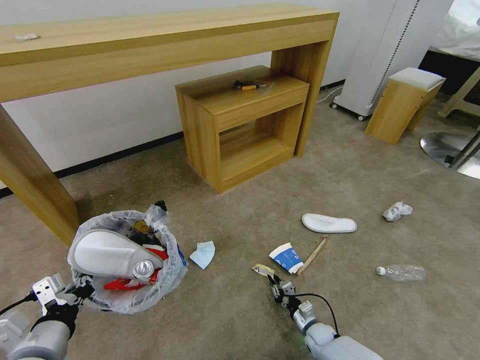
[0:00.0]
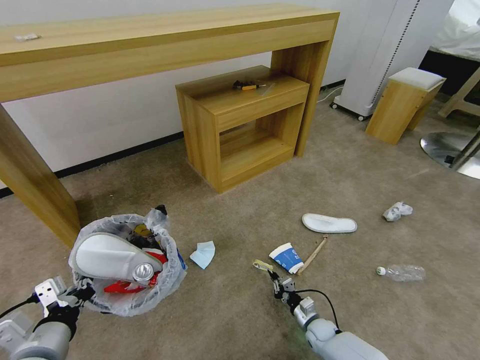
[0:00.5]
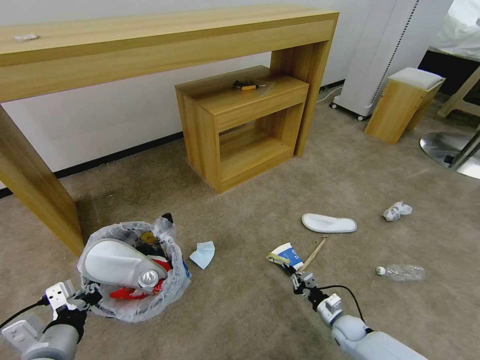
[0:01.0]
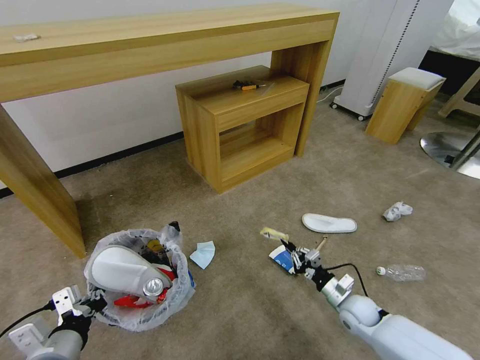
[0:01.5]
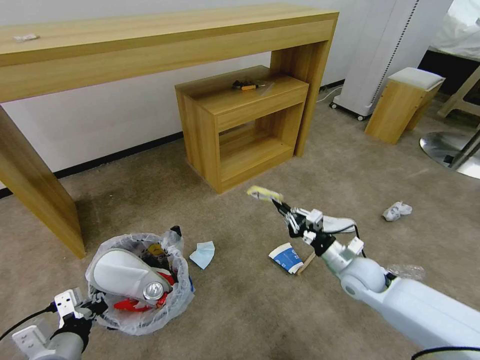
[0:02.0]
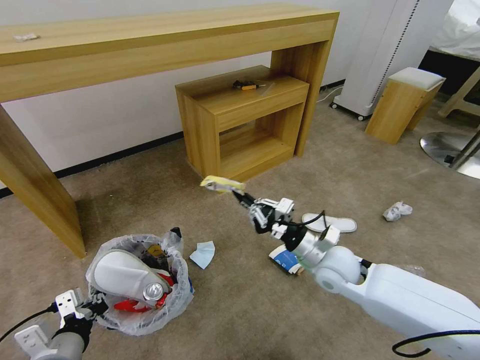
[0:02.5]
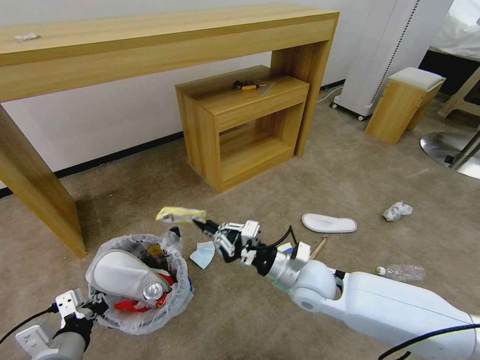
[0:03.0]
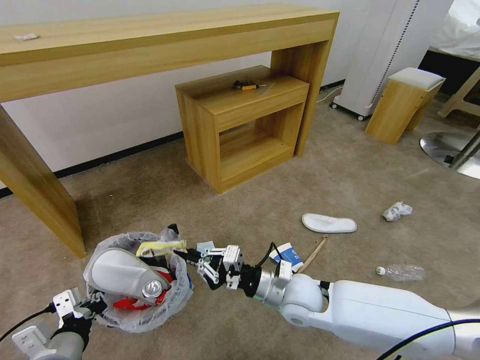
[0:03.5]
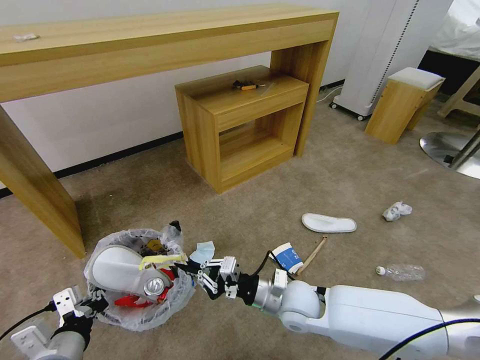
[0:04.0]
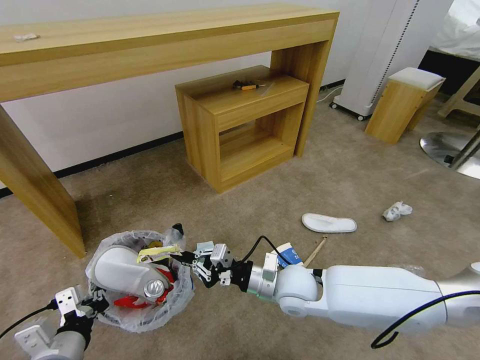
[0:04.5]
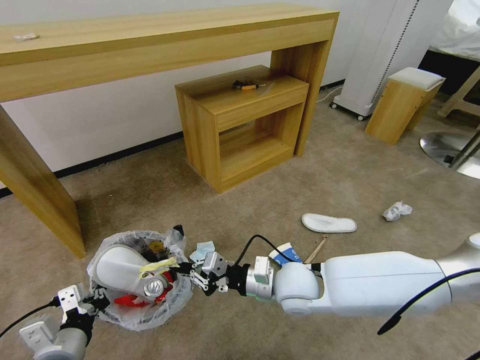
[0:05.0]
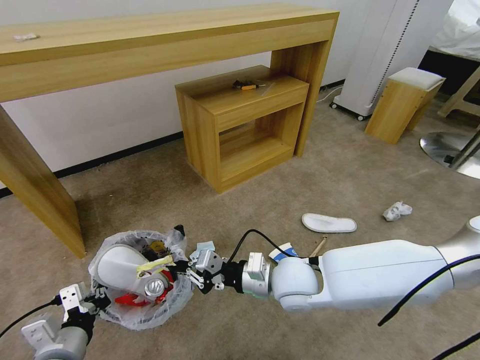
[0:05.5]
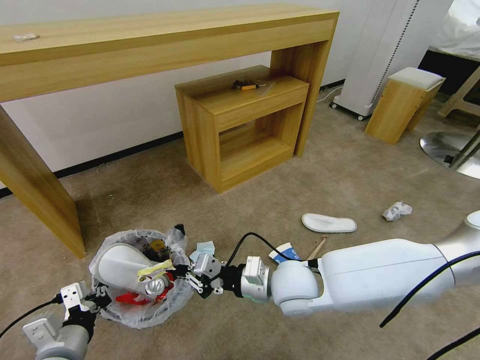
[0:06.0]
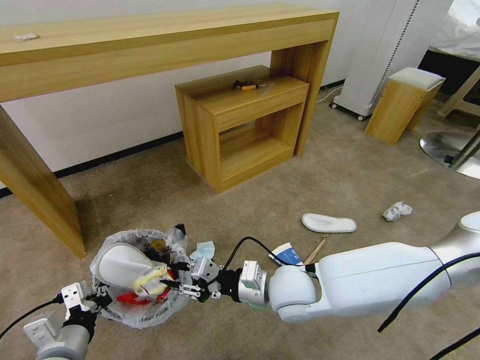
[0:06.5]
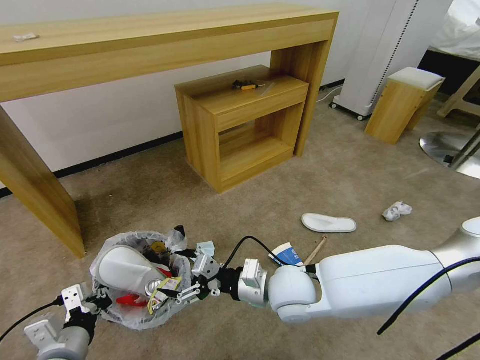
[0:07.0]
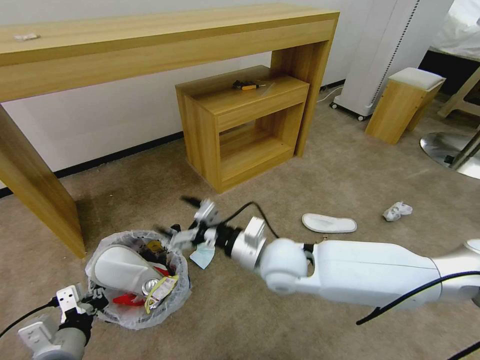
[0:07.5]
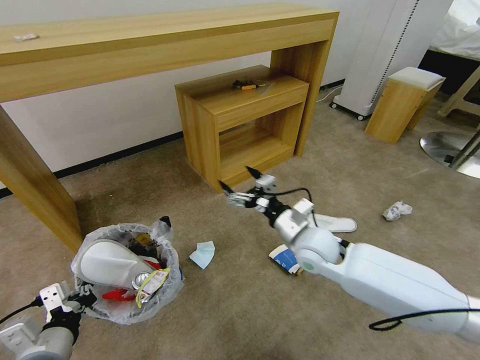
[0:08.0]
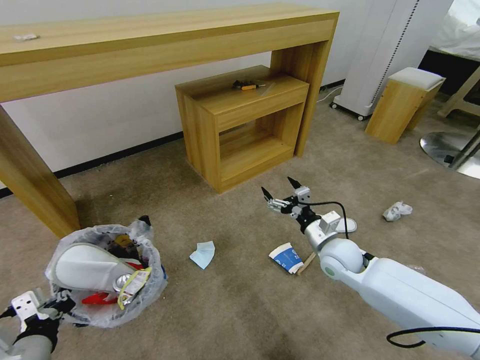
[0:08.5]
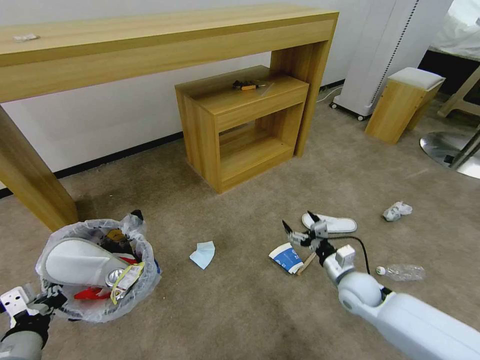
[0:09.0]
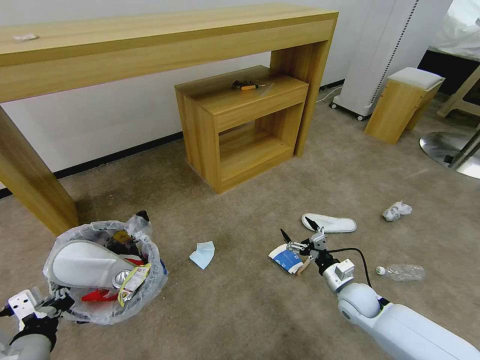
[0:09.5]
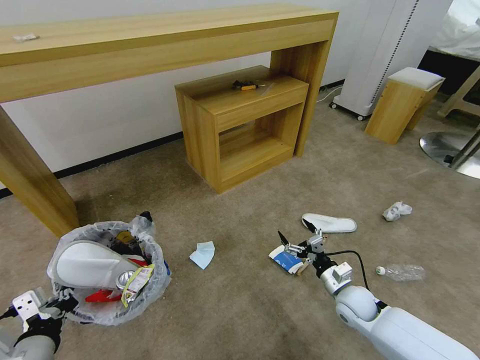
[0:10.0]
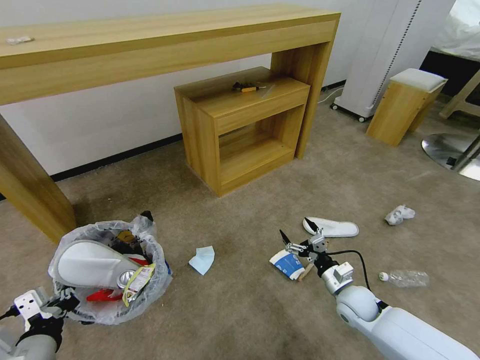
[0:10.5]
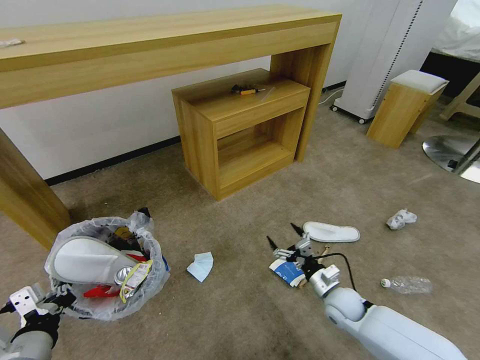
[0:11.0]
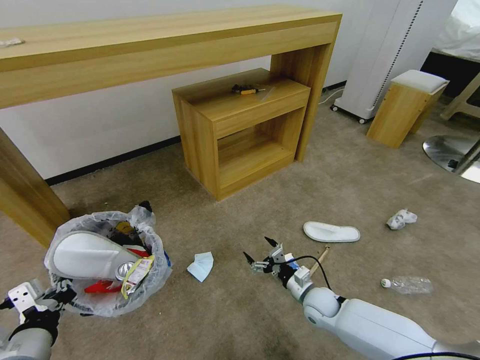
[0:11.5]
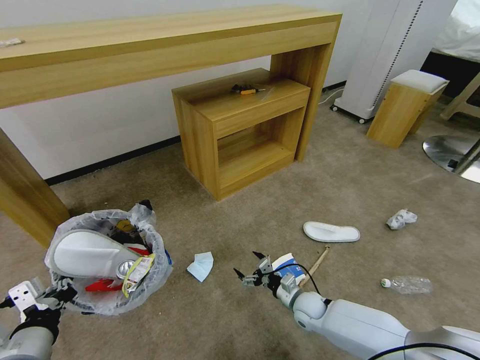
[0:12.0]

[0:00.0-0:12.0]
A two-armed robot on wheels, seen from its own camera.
Task of the whole recording: Pick up the trash bin and place the garbage on the floor into it.
0:00.0 to 0:02.0: The right gripper heads upward, covering roughly 25 cm.
0:02.0 to 0:04.0: The right gripper moves to the left, some 20 cm.
0:04.0 to 0:06.0: The right gripper heads upward, covering roughly 10 cm.
0:06.0 to 0:08.0: The right gripper shifts some 10 cm forward and to the right, and opens up.
0:08.0 to 0:10.0: The right gripper is displaced downward and to the right by some 20 cm.
0:10.0 to 0:12.0: The right gripper goes roughly 15 cm to the left and downward.

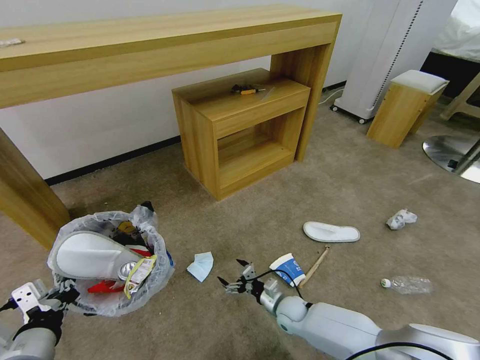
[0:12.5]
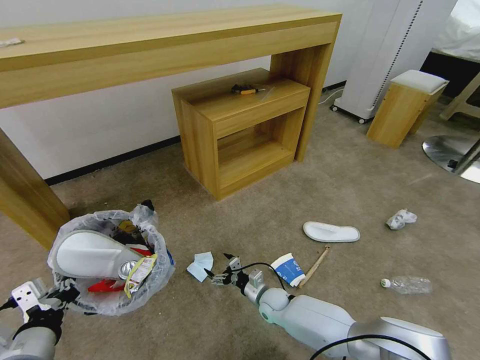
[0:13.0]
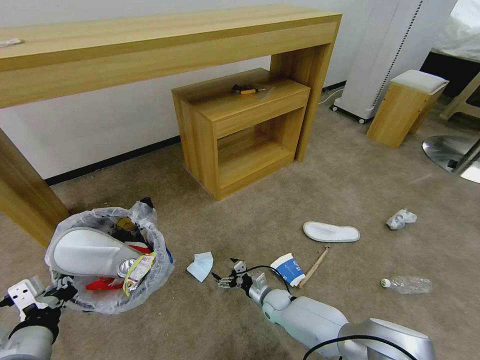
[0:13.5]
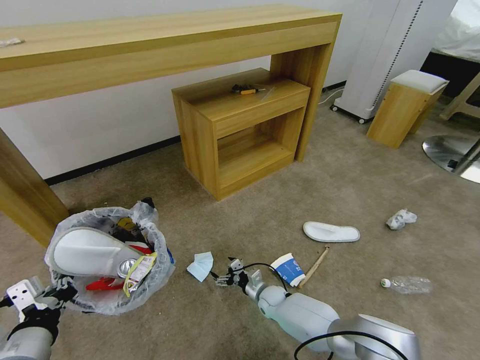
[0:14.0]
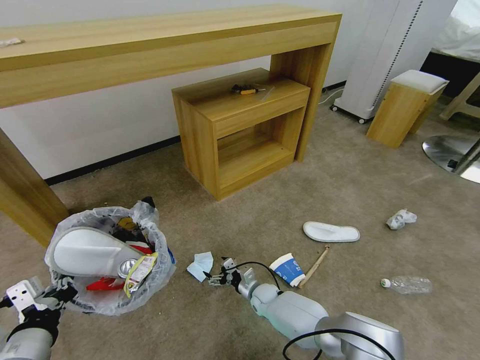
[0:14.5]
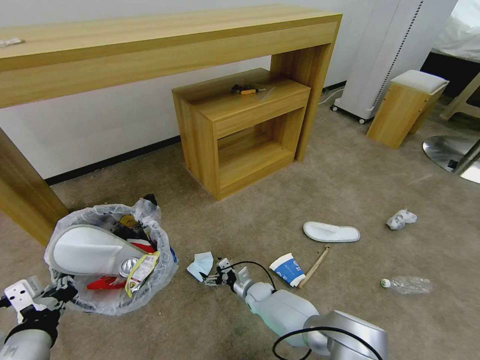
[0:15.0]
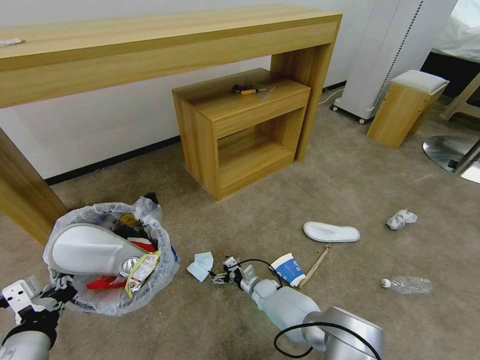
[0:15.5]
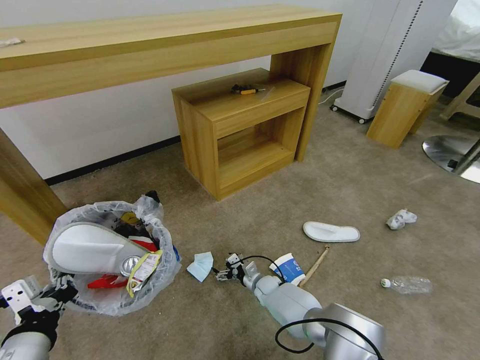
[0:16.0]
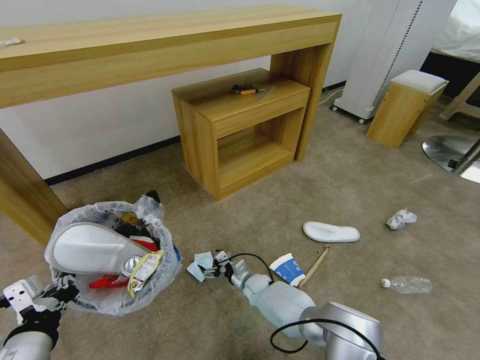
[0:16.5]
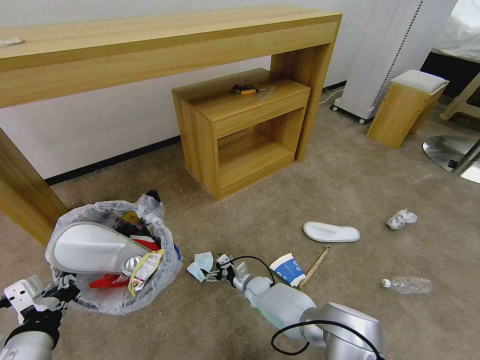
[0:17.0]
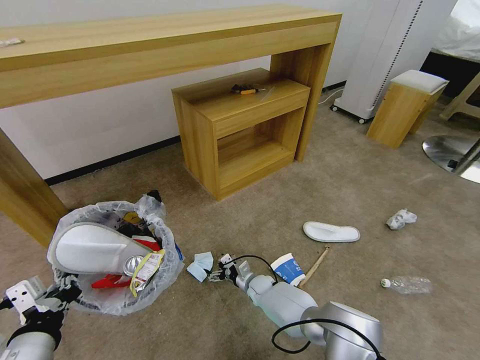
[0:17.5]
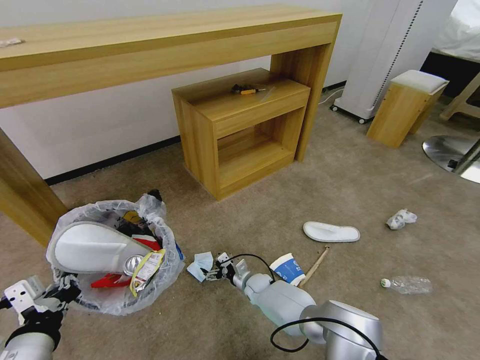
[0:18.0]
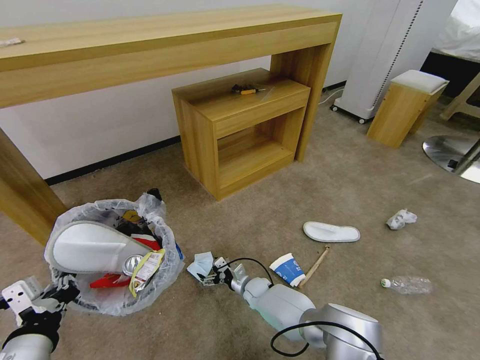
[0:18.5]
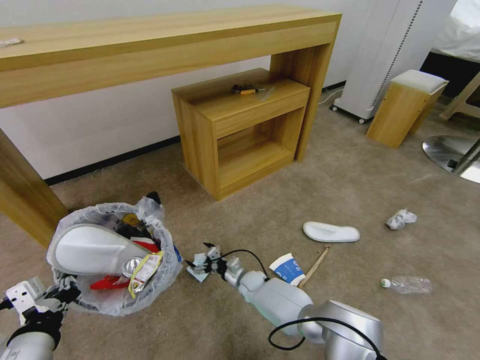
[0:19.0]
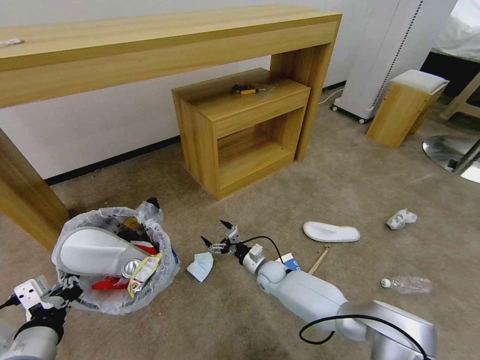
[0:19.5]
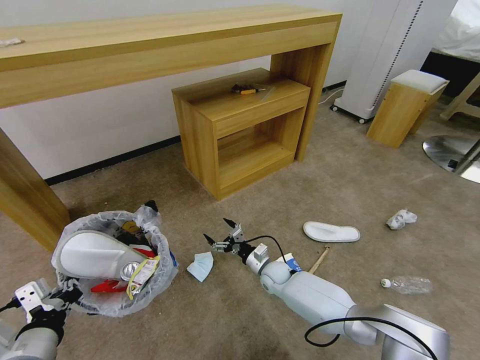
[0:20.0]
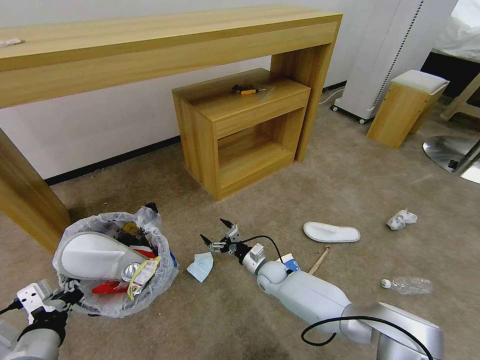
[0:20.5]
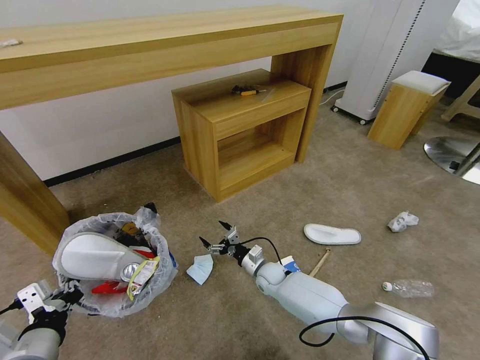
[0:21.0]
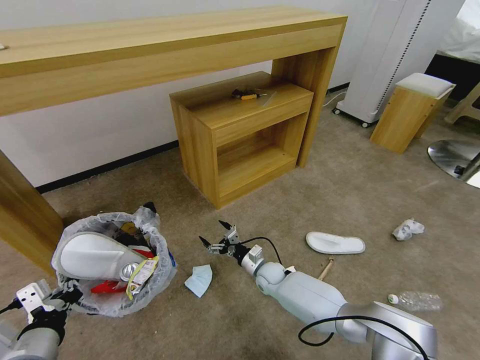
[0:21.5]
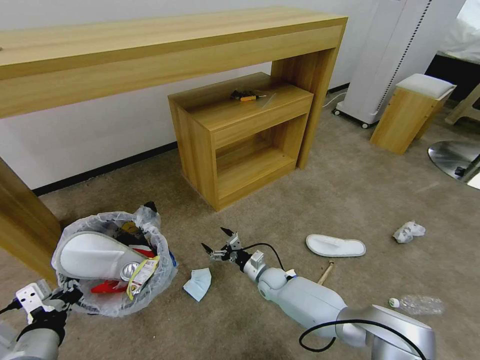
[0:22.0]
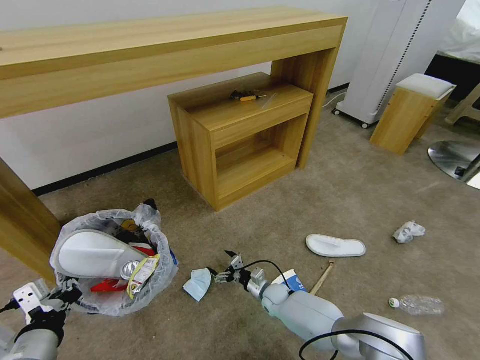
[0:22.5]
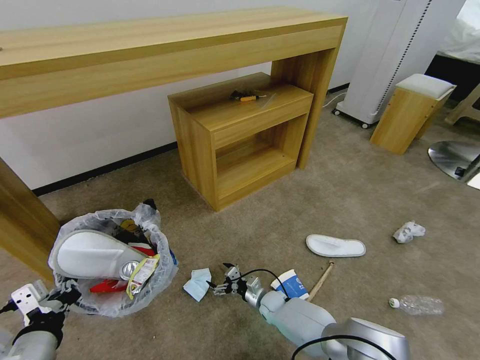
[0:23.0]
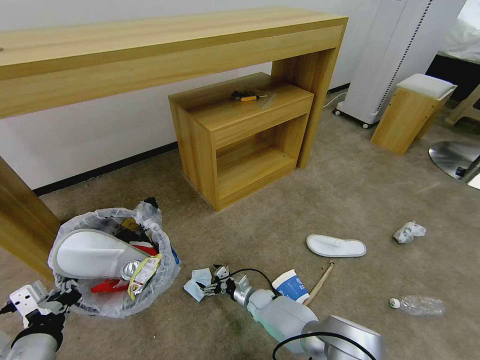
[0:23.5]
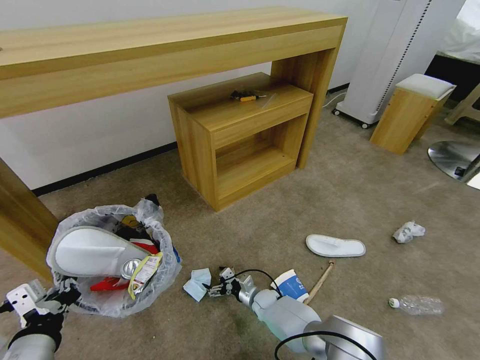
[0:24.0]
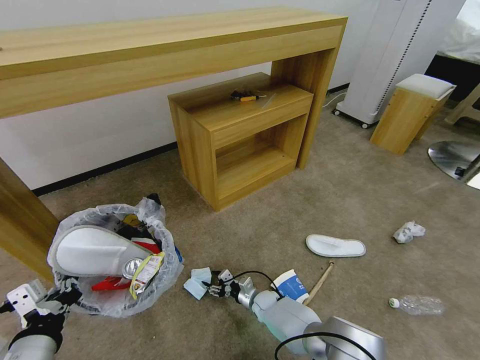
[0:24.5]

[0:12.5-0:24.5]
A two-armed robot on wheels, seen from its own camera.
Task of the whole recording: Pick up the trash bin and place the garbage on the floor into it.
0:12.5 to 0:14.5: The right gripper moves to the left and forward, some 10 cm.
0:14.5 to 0:18.5: There are only small adjustments of the grippers.
0:18.5 to 0:20.5: The left gripper shifts by roughly 5 cm. The right gripper moves upward, some 5 cm.
0:20.5 to 0:22.5: The right gripper travels downward by some 5 cm.
0:22.5 to 0:24.5: The right gripper closes its fingers.

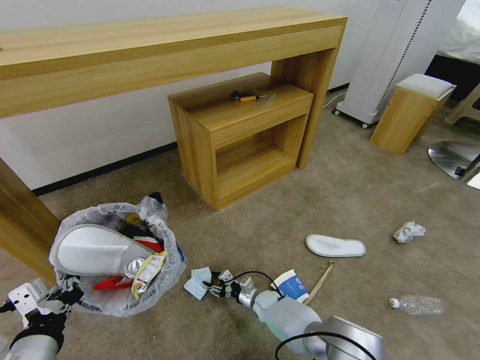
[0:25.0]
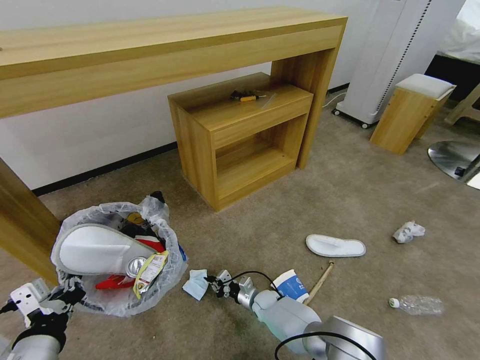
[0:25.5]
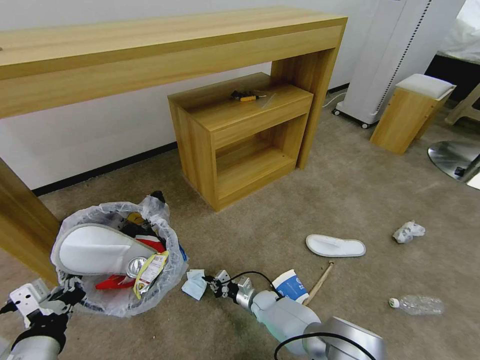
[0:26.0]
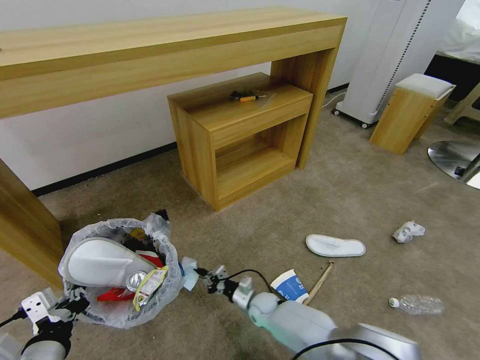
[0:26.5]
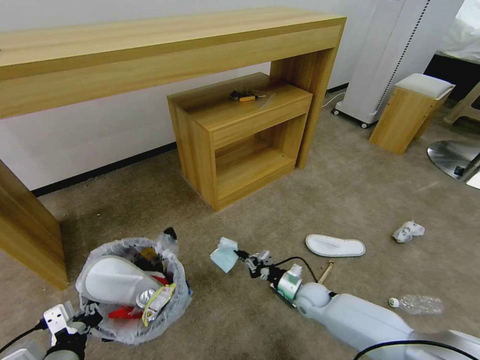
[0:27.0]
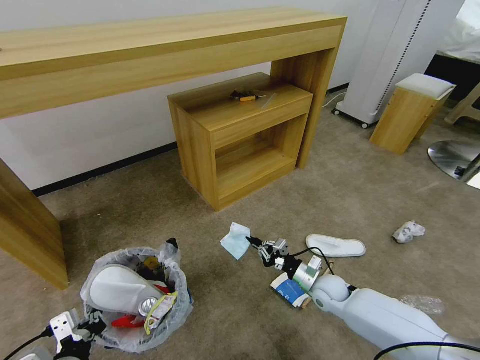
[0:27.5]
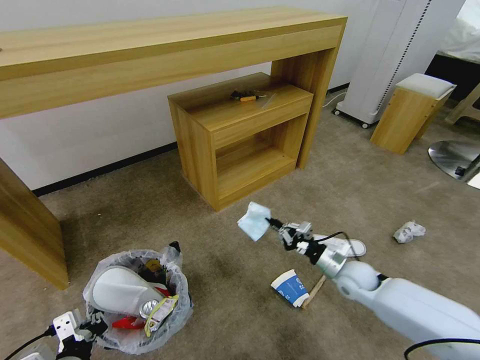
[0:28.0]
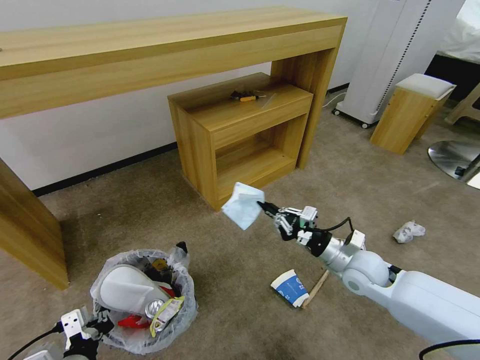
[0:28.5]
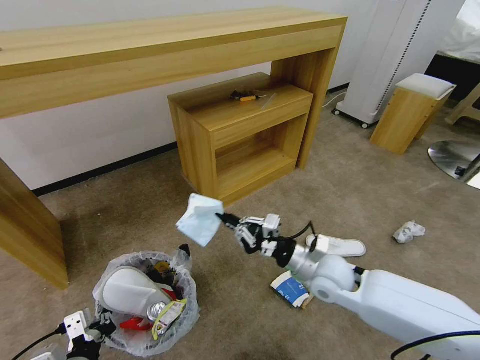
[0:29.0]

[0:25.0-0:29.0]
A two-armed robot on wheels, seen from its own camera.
Task of the whole recording: Pick up the trash bin and place the garbage on the floor into it.
0:25.0 to 0:27.0: The right gripper heads to the right and upward, covering about 15 cm, and closes up; the left gripper shifts roughly 5 cm downward.
0:27.0 to 0:29.0: The right gripper heads upward, covering roughly 20 cm.
